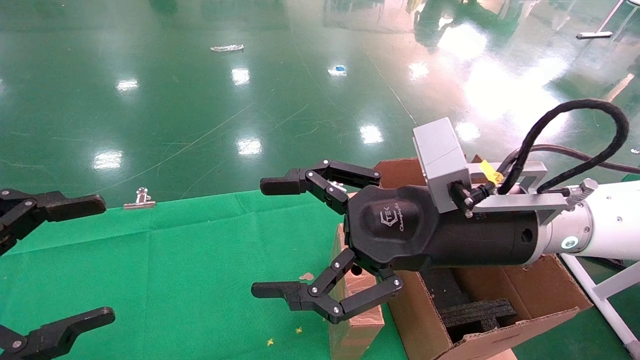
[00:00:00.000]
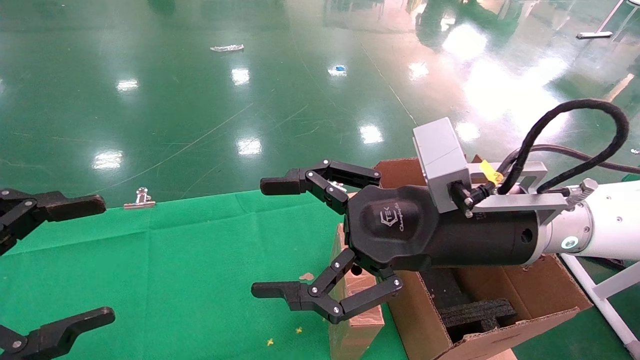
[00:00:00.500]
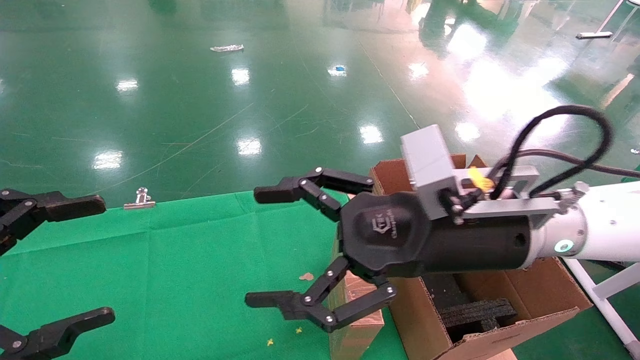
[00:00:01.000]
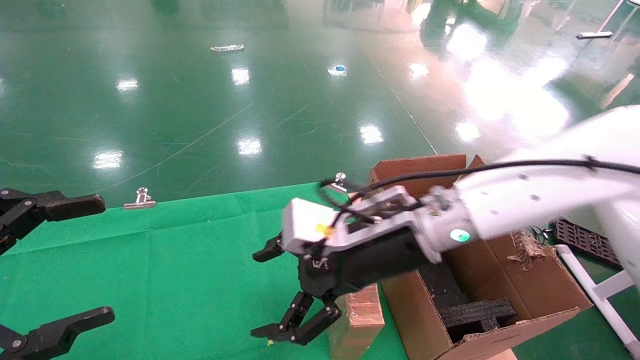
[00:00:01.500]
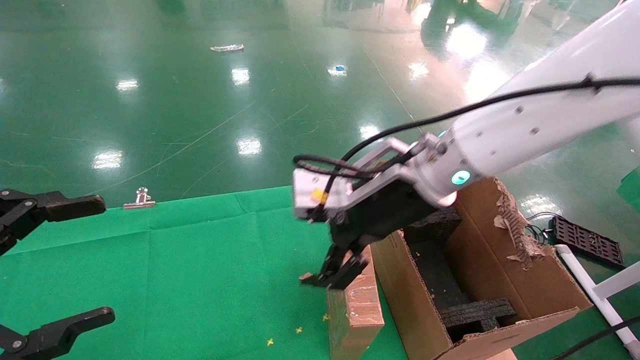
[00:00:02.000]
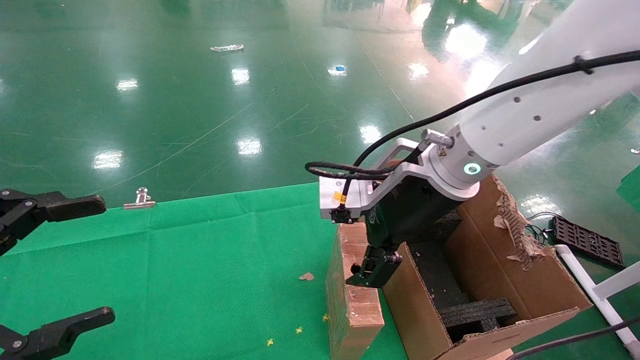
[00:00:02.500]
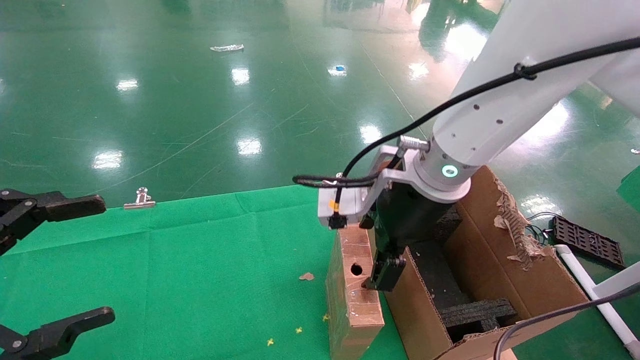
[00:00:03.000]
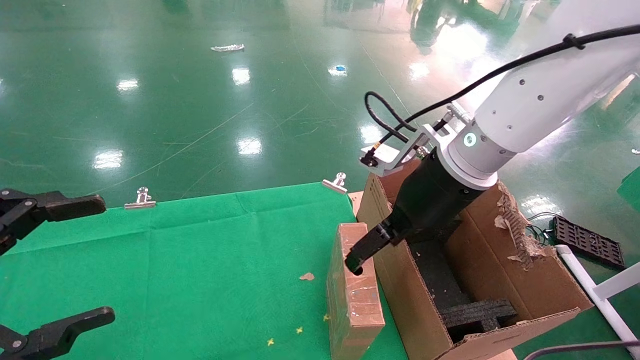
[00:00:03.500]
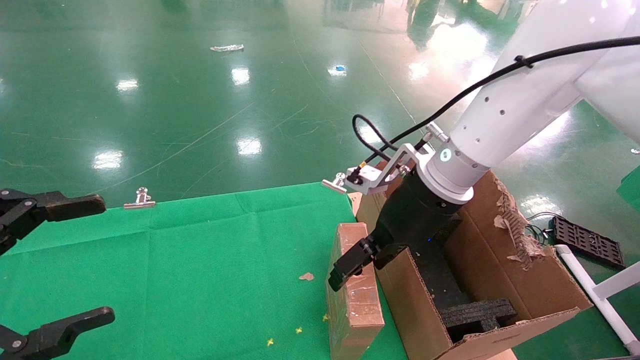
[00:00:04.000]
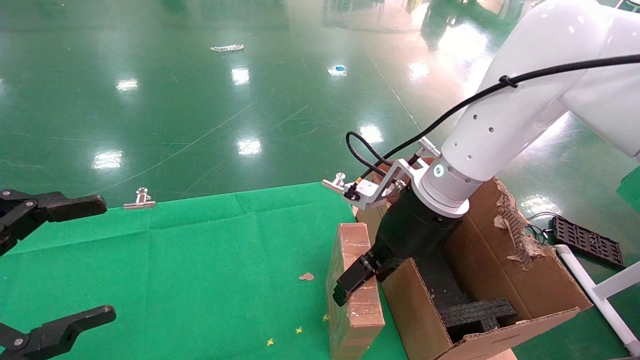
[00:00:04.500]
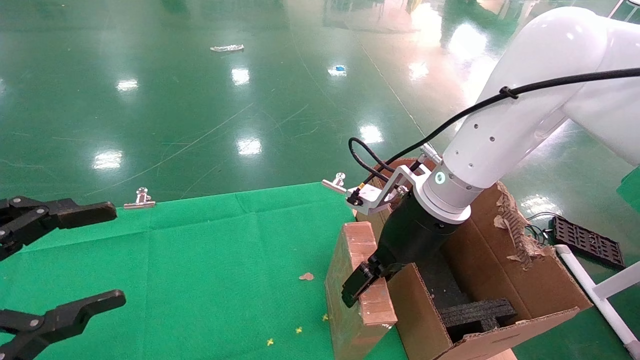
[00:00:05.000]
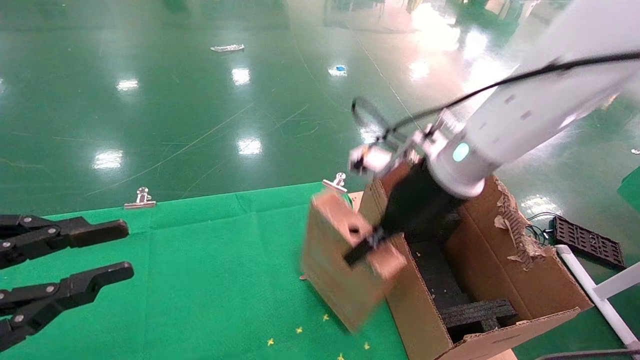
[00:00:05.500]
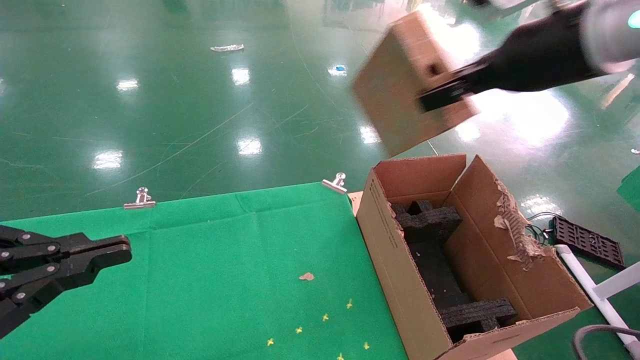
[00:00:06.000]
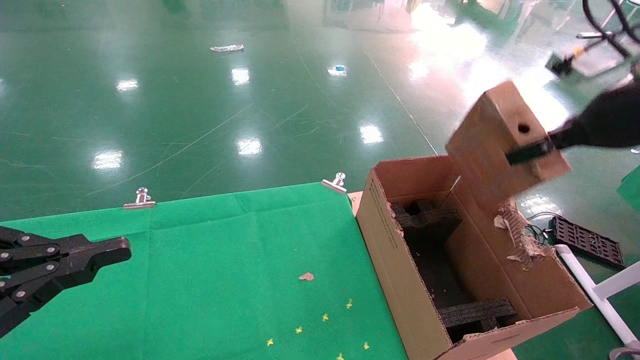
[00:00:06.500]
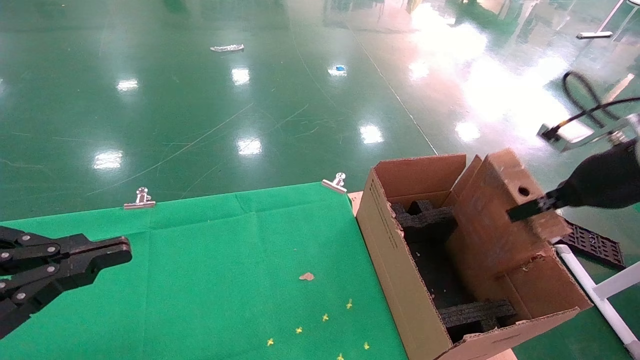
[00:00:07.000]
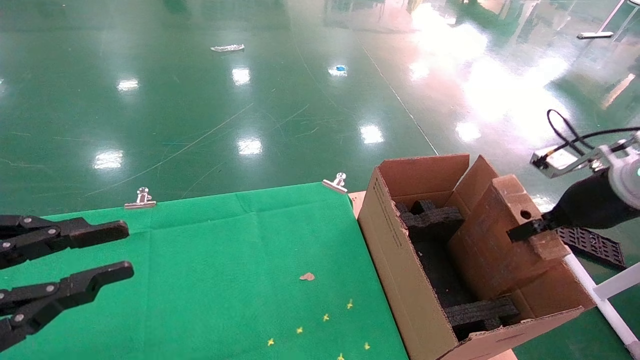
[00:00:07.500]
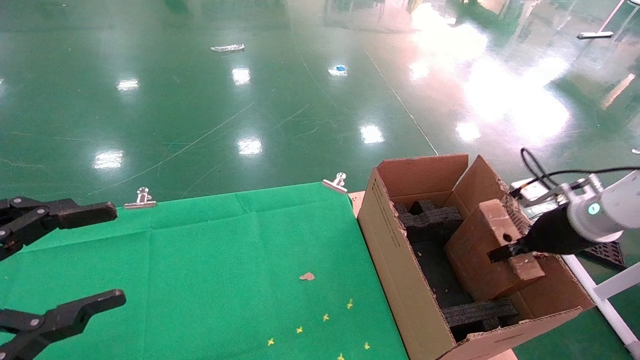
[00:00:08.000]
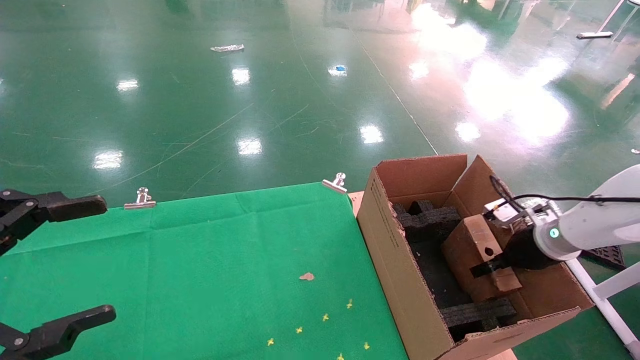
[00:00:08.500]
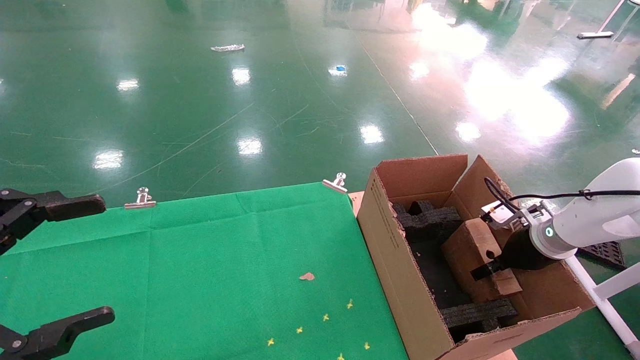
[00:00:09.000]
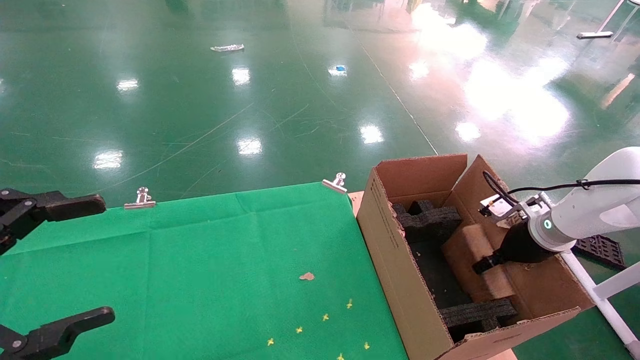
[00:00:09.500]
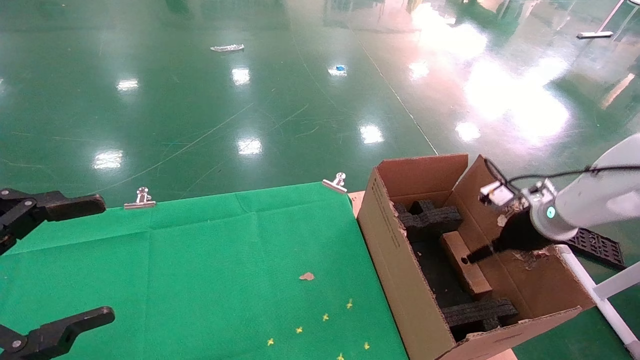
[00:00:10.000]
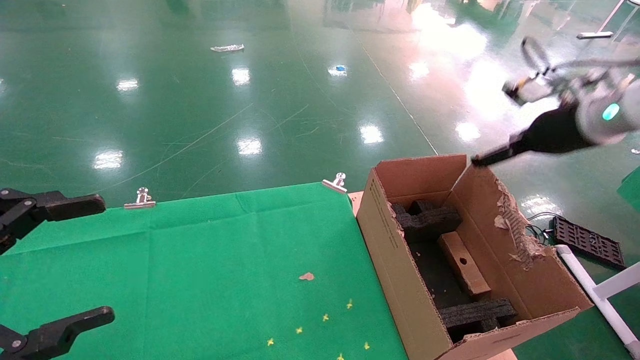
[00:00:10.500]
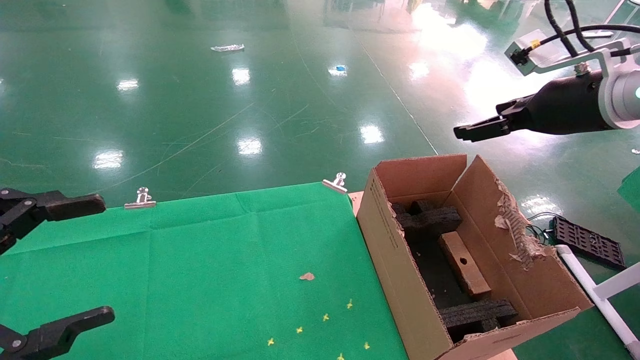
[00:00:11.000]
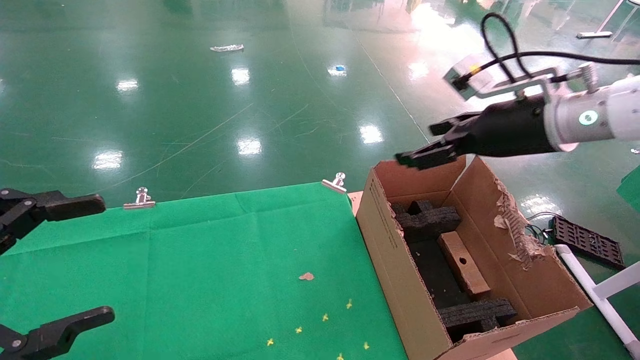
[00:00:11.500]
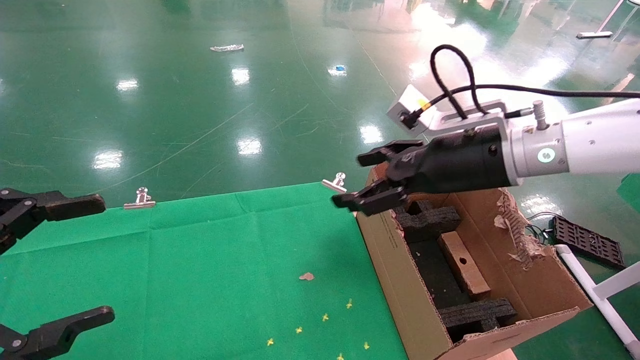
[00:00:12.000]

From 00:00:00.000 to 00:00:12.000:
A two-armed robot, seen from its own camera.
Task of the whole recording: using a robotic arm to pick up a cardboard box and palace it the carton.
Step, from 00:00:01.500 to 00:00:05.000: Pick up the mouse and the power cord paper box.
Step, from 00:00:05.500 to 00:00:10.000: Place the mouse and the power cord paper box into the container.
From 00:00:00.000 to 00:00:02.000: The right gripper heads forward, covering approximately 5 cm.
From 00:00:02.000 to 00:00:04.000: The right gripper changes place by approximately 5 cm.
From 00:00:04.000 to 00:00:06.000: The right gripper travels upward and to the right by about 20 cm, and closes up; the left gripper closes.
From 00:00:06.000 to 00:00:08.000: The left gripper opens its fingers. Meanwhile the right gripper moves downward and to the right, about 25 cm.
From 00:00:08.000 to 00:00:10.000: The left gripper opens, while the right gripper opens up.
From 00:00:10.000 to 00:00:12.000: The right gripper goes approximately 25 cm to the left and upward.

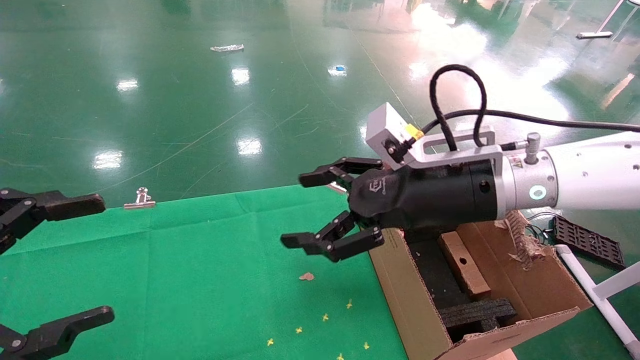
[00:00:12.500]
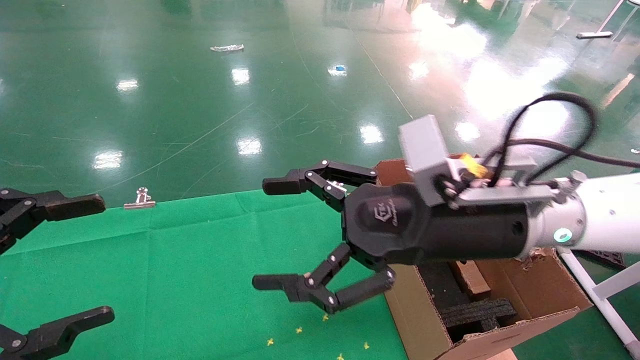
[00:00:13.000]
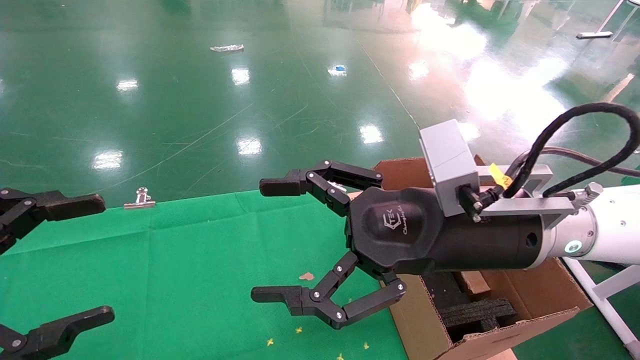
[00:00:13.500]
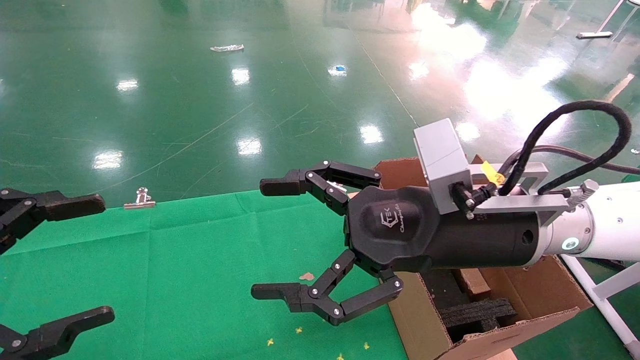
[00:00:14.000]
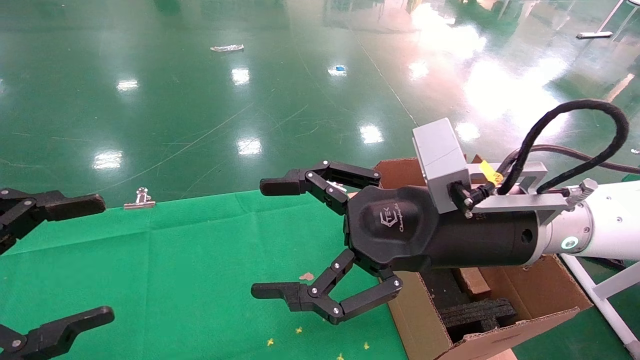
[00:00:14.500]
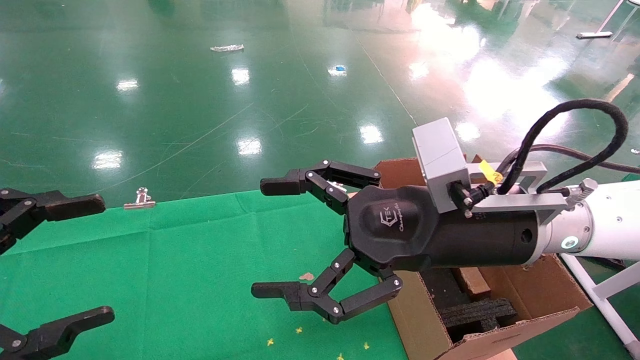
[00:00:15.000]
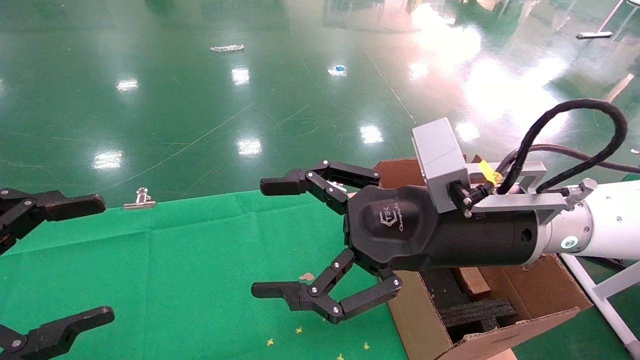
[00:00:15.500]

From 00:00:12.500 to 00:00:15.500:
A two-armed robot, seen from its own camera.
Task of the whole recording: using a robotic arm to pick up a cardboard box and palace it the carton.
From 00:00:12.500 to 00:00:14.000: The right gripper changes place by roughly 5 cm.
From 00:00:14.000 to 00:00:15.500: Both grippers stay about where they are.
